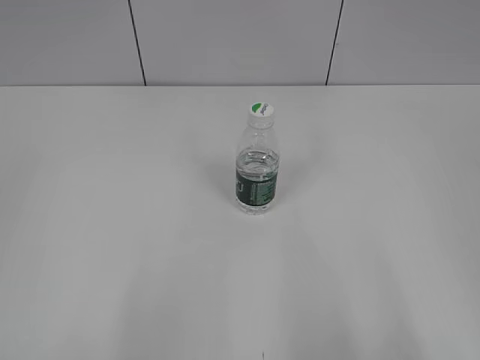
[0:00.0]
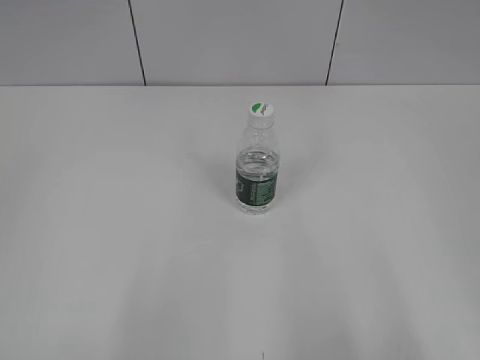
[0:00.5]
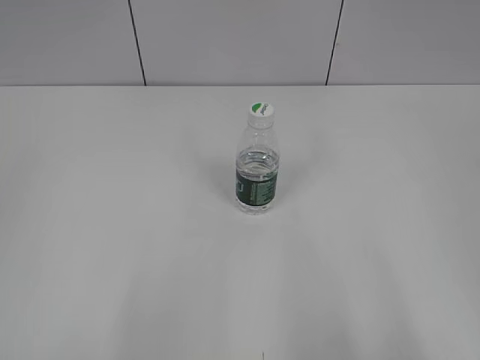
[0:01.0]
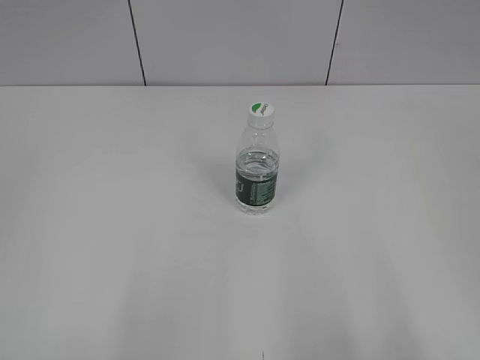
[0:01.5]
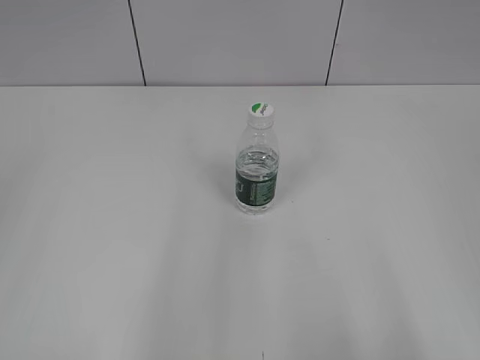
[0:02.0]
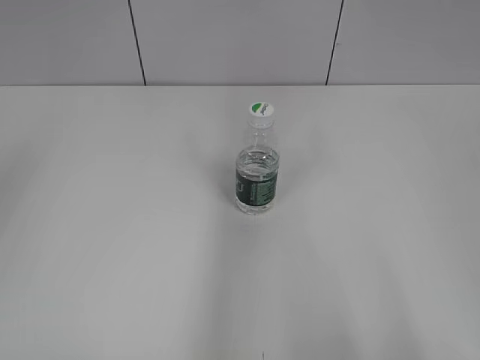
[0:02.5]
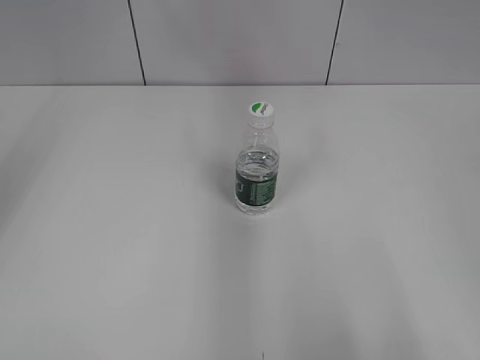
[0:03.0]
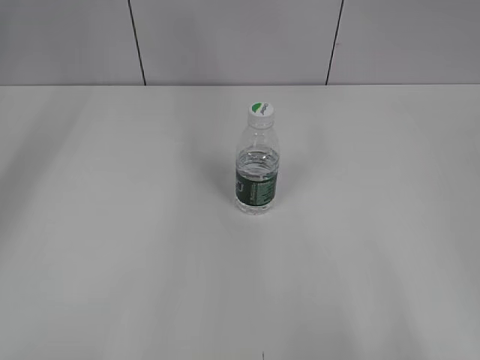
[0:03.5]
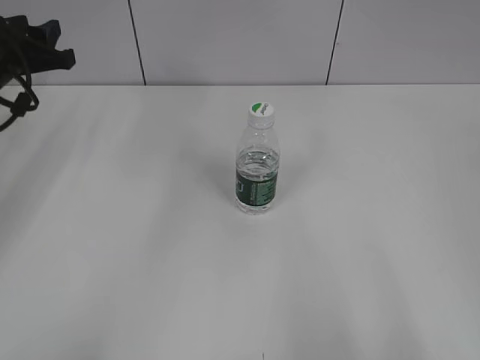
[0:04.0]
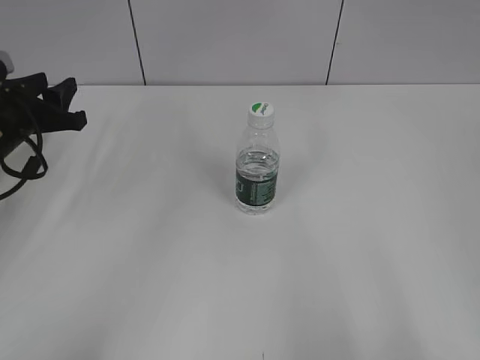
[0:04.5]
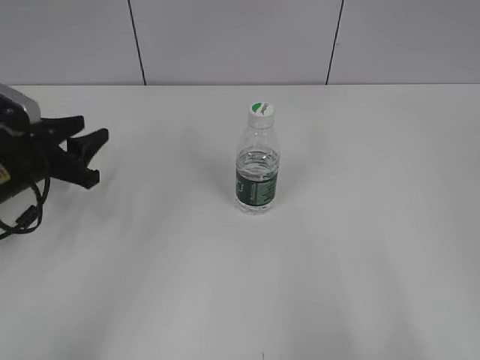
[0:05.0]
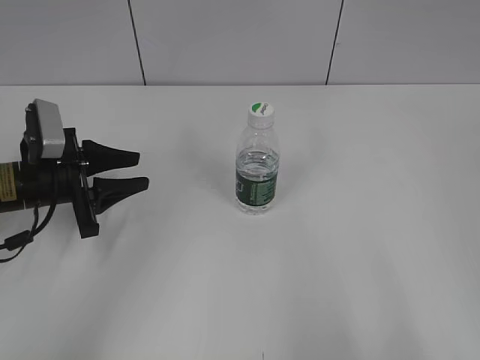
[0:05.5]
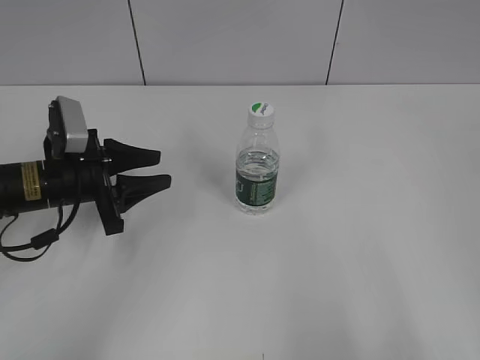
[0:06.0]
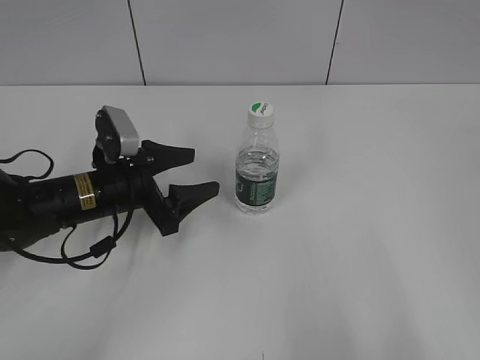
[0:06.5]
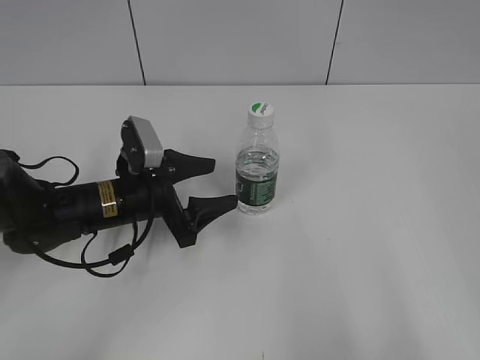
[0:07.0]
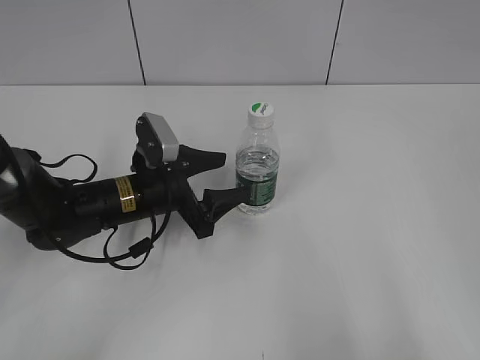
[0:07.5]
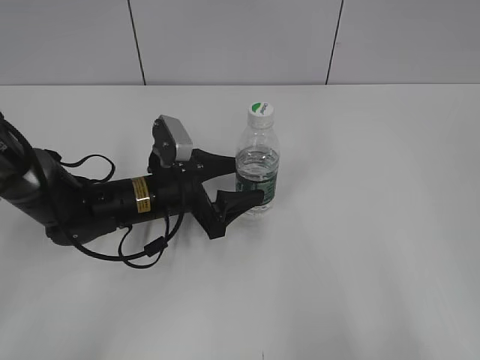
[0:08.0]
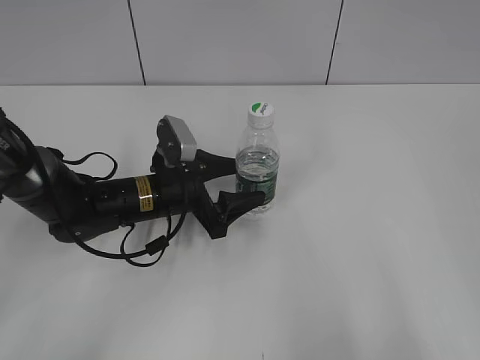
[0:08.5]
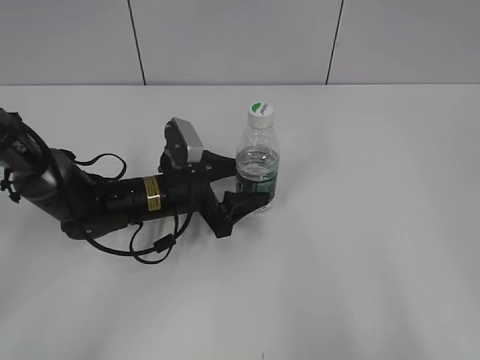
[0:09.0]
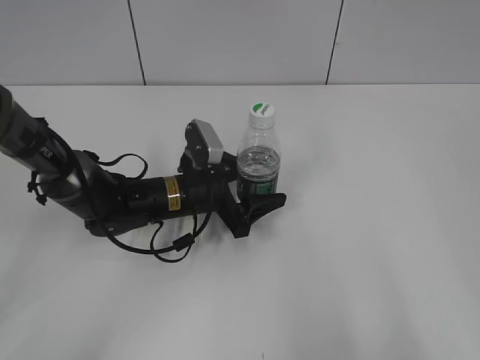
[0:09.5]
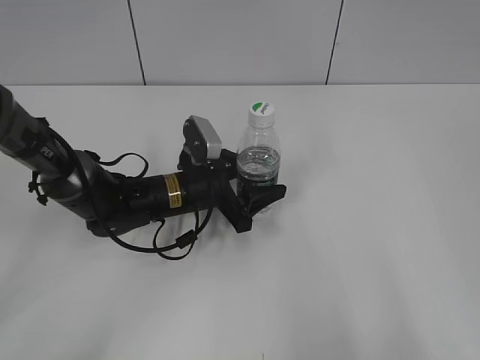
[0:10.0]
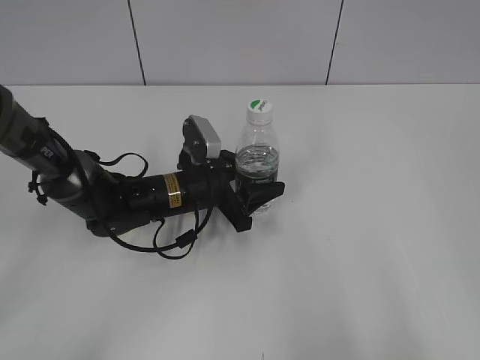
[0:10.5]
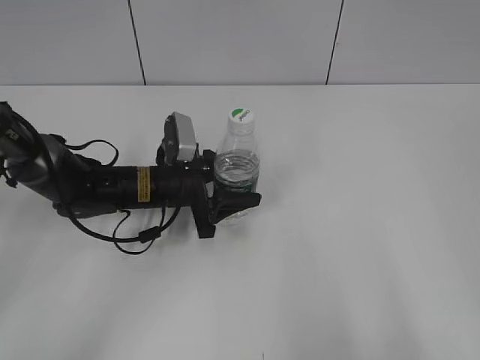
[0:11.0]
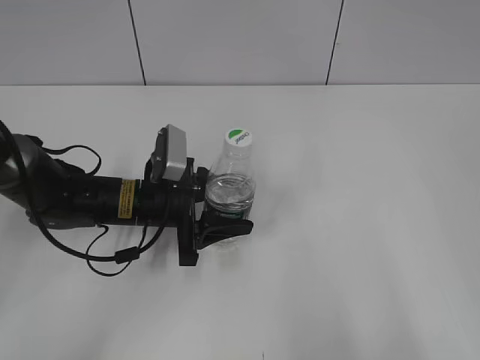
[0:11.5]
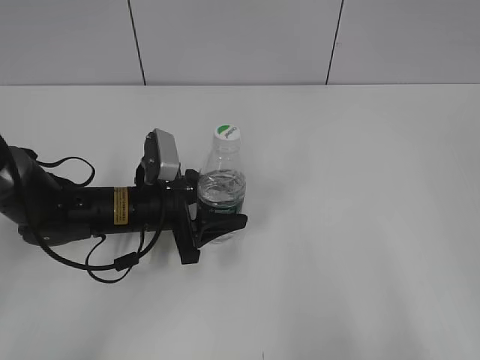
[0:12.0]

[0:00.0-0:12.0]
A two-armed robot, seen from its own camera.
Step, 0:00.0 to 0:10.0: Grasp the bottle and move it to the center of the table with the left gripper.
0:02.0 to 0:04.0: The left gripper shifts some 40 cm forward.
0:04.0 to 0:06.0: The left gripper moves downward, backward and to the right, approximately 15 cm.
0:06.0 to 0:08.0: The left gripper travels to the right by some 10 cm, and opens its fingers.
0:08.0 to 0:10.0: There are only small adjustments of the grippers.
0:10.0 to 0:12.0: The left gripper heads to the left, covering some 5 cm.

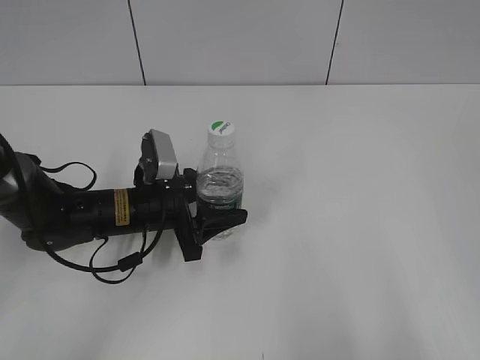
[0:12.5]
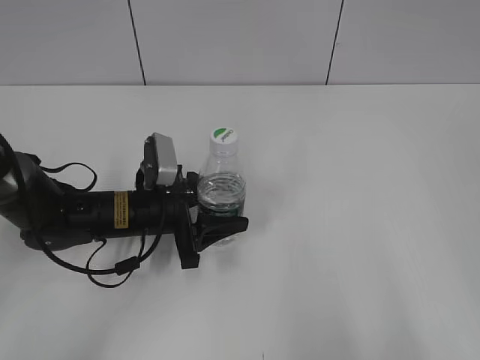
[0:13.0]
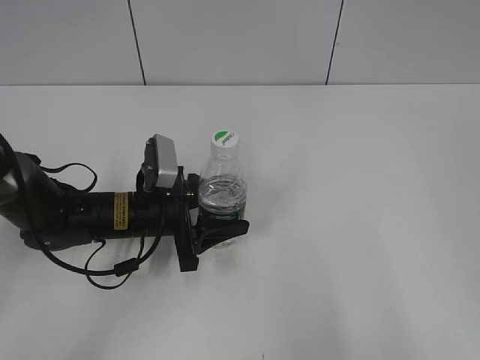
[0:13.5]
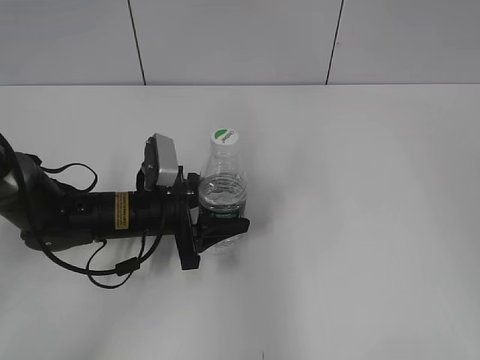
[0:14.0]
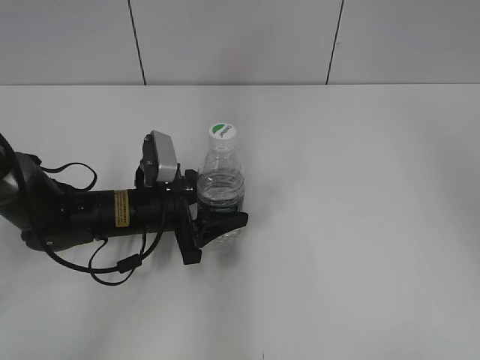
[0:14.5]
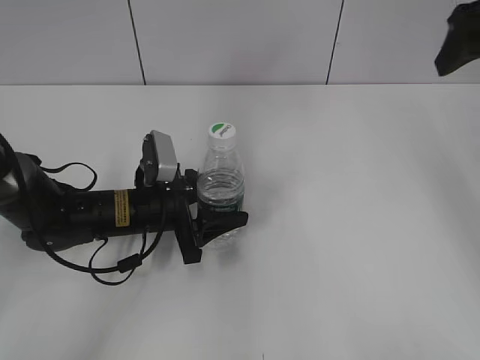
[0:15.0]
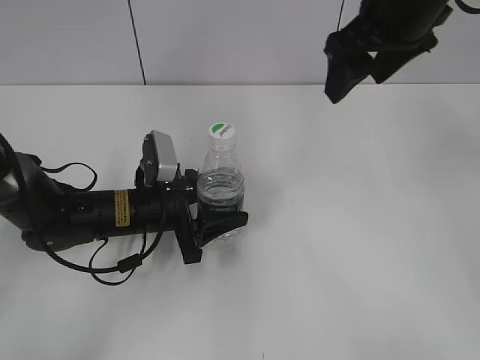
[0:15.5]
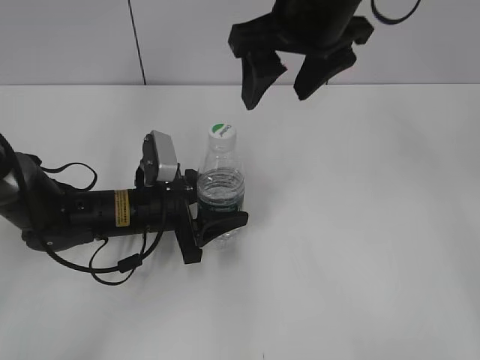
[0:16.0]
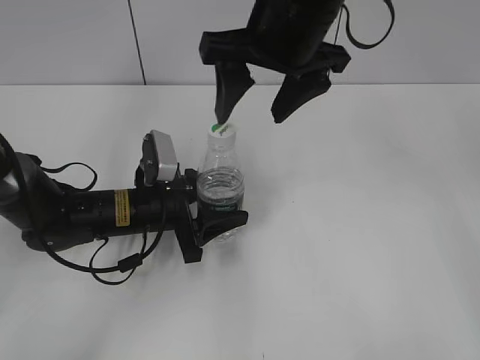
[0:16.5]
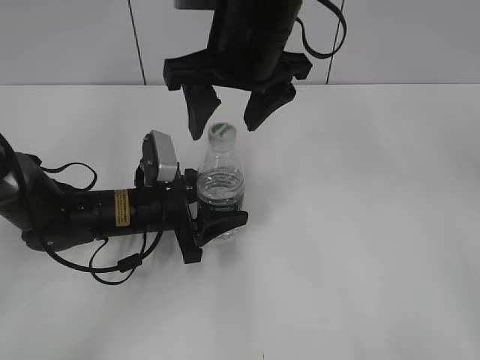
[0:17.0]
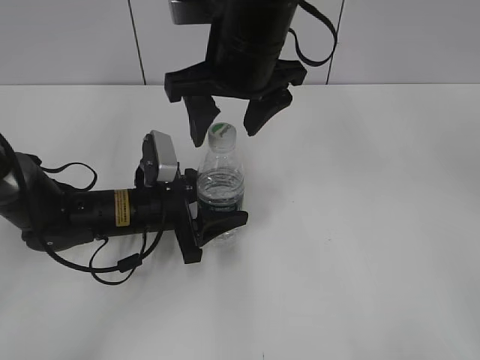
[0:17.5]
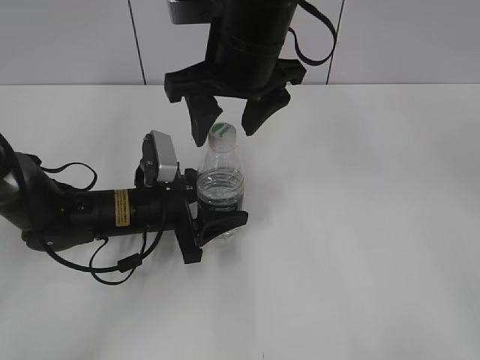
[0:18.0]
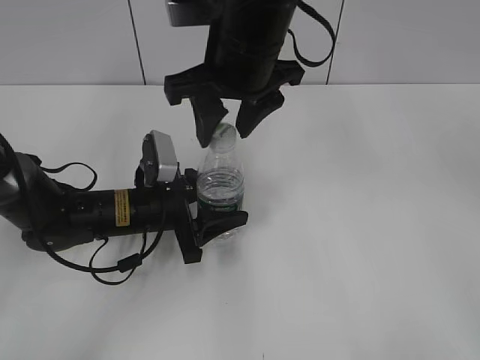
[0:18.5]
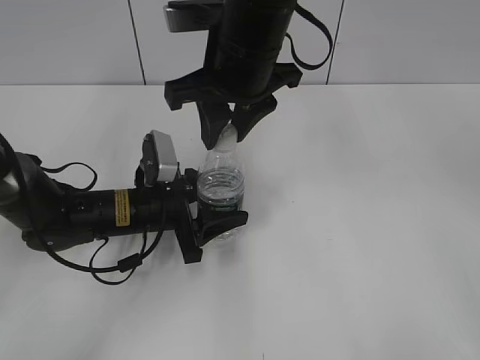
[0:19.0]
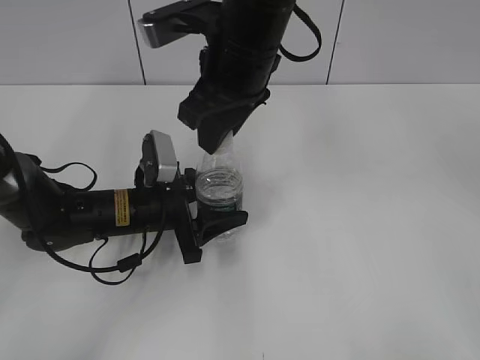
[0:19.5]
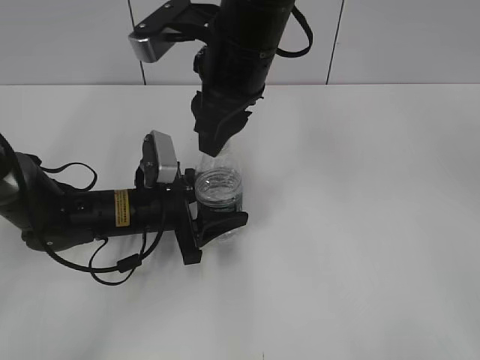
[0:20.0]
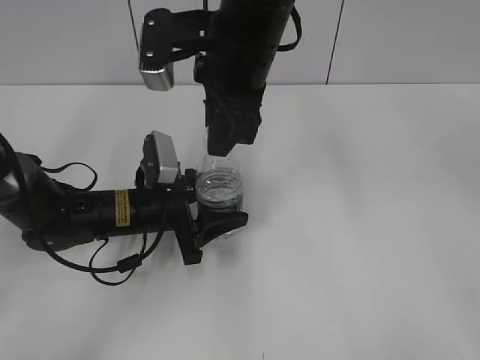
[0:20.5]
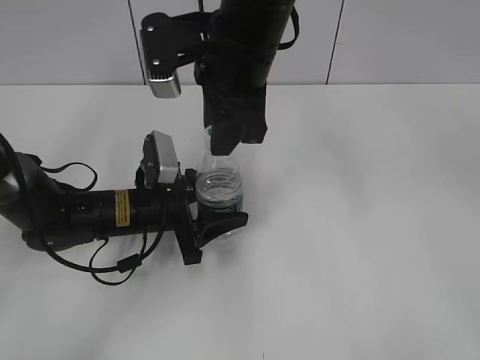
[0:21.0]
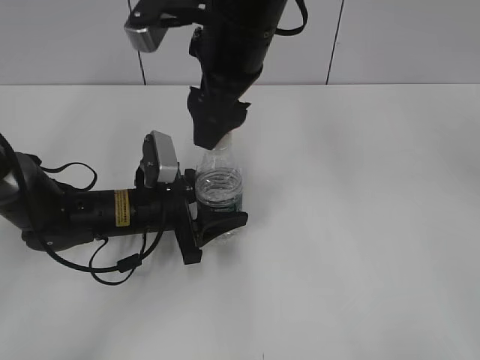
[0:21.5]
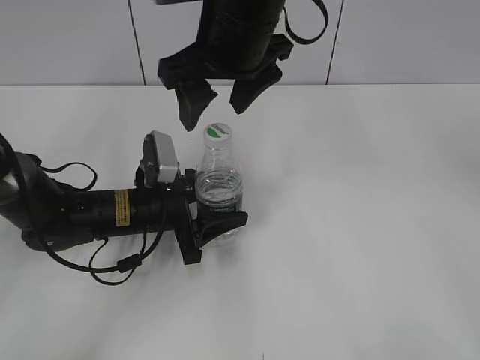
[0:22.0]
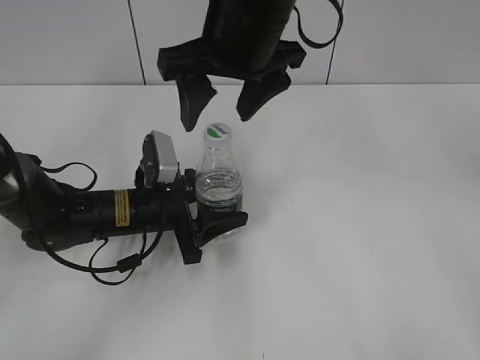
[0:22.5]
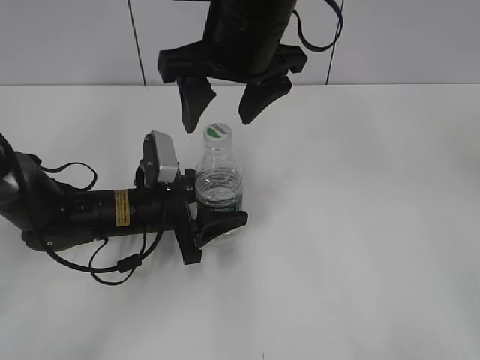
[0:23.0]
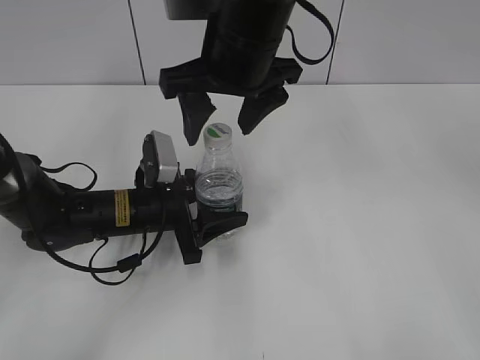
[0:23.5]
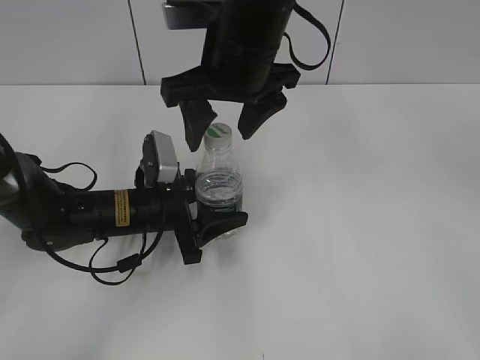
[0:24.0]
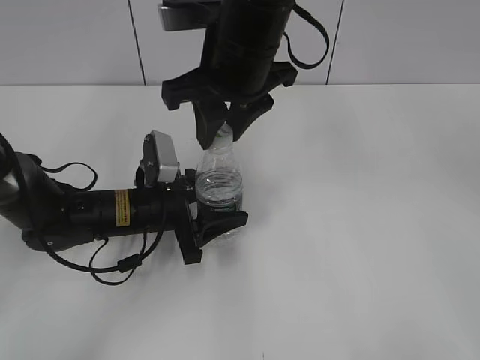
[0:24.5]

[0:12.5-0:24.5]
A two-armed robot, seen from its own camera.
0:12.5 to 0:14.5: The right gripper goes some 30 cm forward and upward.
0:14.5 to 0:16.5: The right gripper travels to the left and downward by approximately 25 cm.
0:16.5 to 0:18.5: The right gripper changes place by some 5 cm, and closes up.
0:18.5 to 0:20.5: The right gripper closes up.
0:20.5 to 0:22.5: The right gripper opens its fingers.
0:22.5 to 0:24.5: The right gripper closes its fingers.

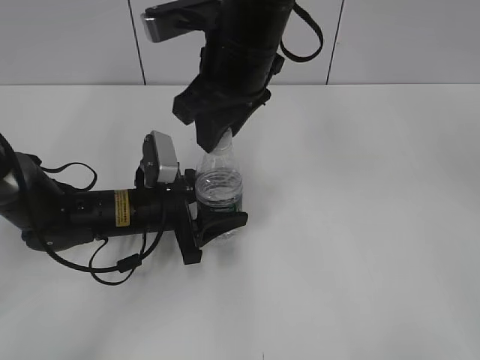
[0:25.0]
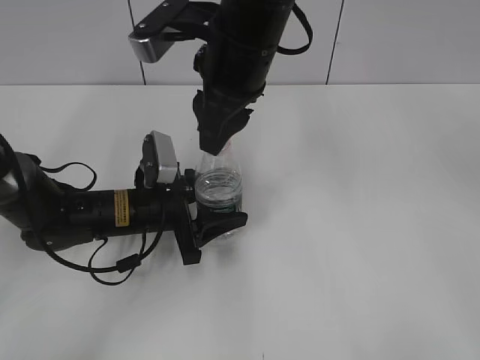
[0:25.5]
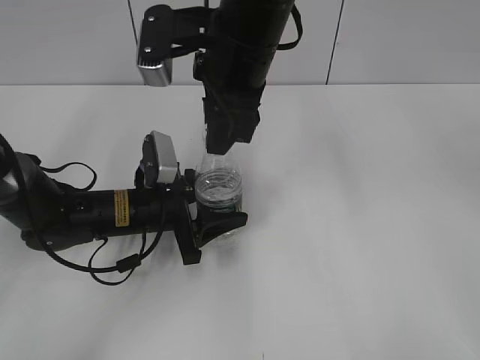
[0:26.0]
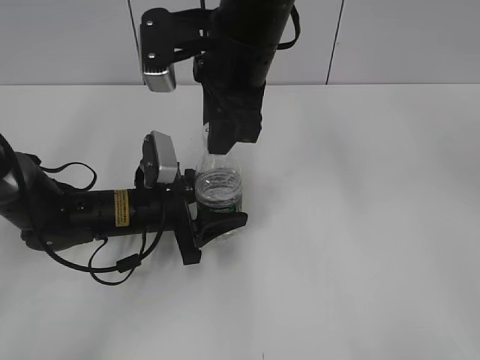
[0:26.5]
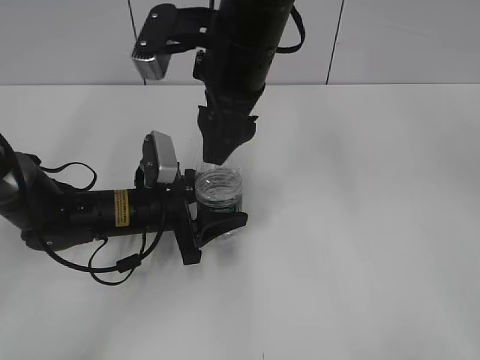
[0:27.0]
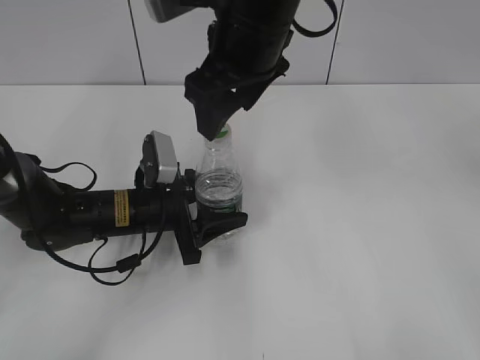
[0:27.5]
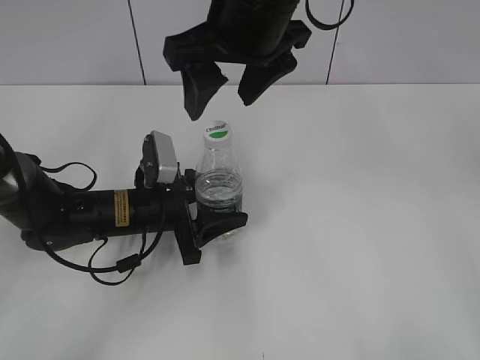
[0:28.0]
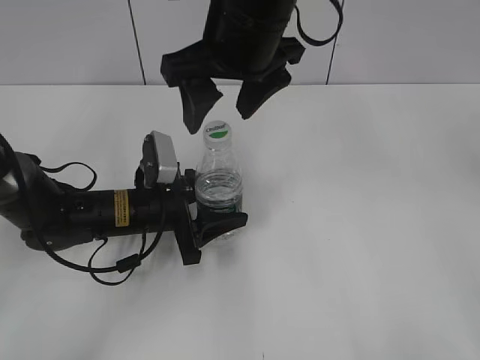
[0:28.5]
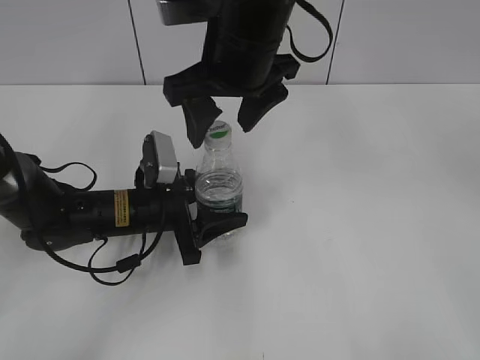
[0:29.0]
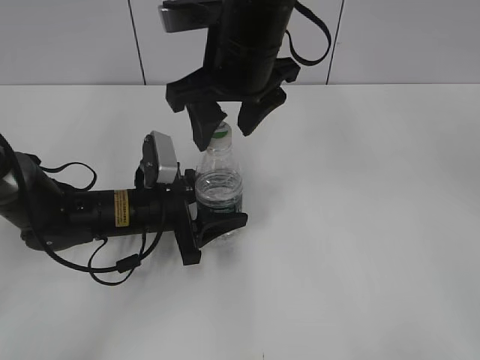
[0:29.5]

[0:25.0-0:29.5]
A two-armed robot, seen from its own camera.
0:25.0 to 0:27.0: The right gripper opens.
